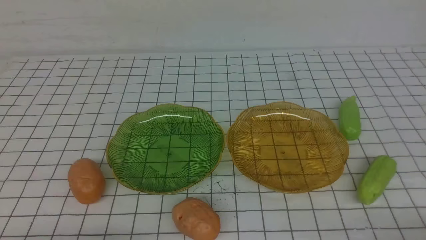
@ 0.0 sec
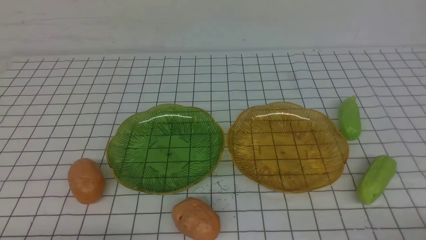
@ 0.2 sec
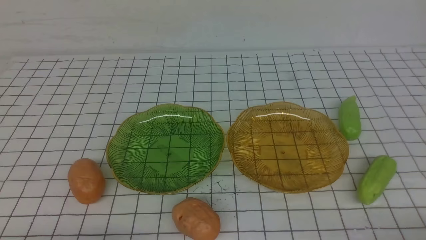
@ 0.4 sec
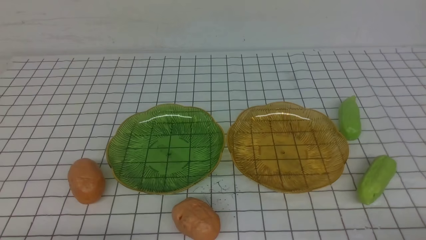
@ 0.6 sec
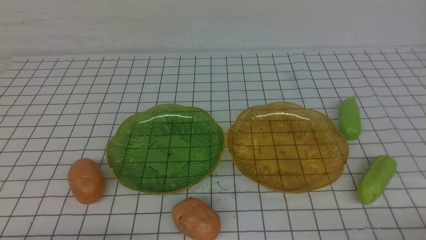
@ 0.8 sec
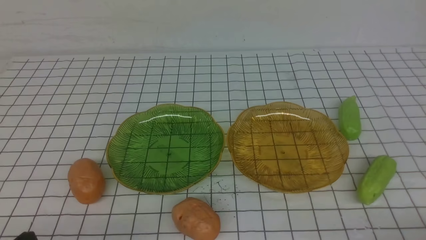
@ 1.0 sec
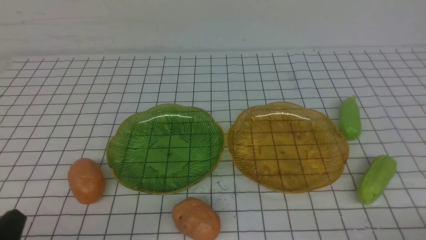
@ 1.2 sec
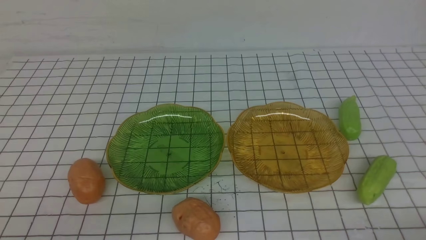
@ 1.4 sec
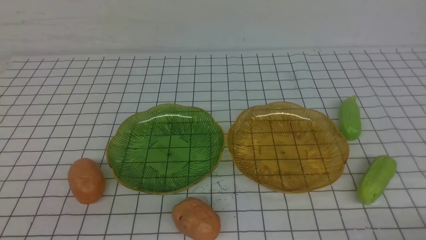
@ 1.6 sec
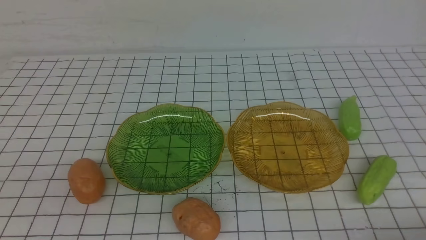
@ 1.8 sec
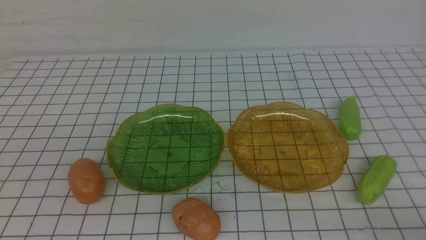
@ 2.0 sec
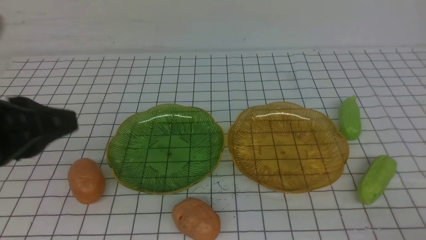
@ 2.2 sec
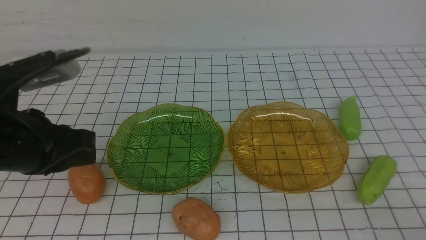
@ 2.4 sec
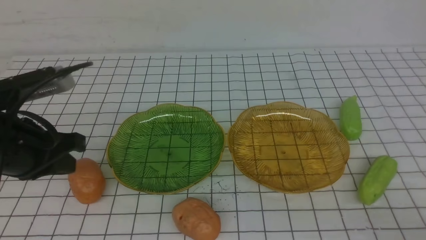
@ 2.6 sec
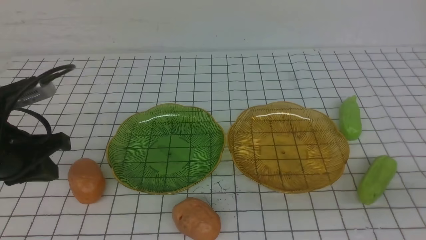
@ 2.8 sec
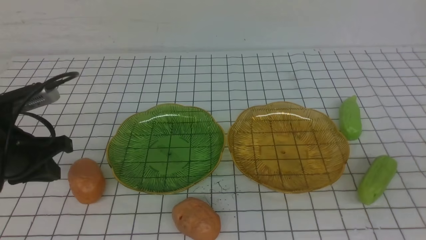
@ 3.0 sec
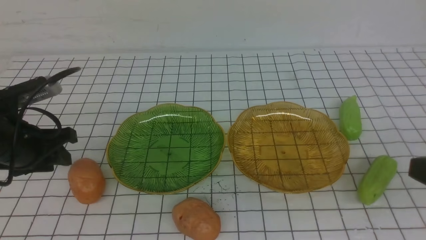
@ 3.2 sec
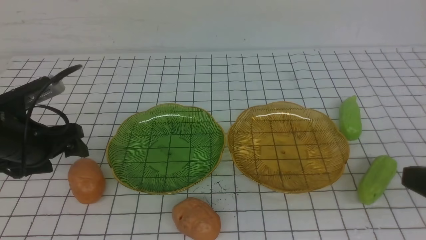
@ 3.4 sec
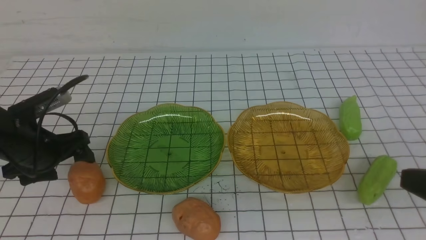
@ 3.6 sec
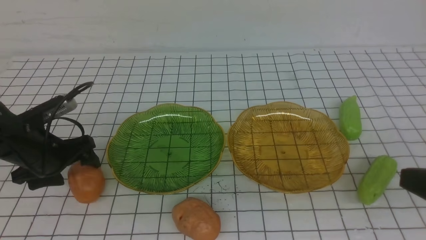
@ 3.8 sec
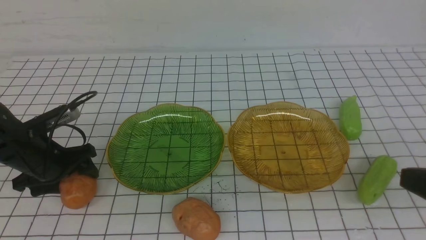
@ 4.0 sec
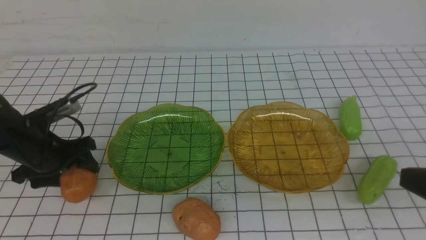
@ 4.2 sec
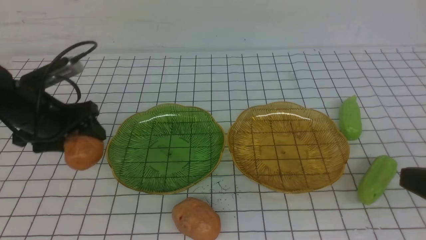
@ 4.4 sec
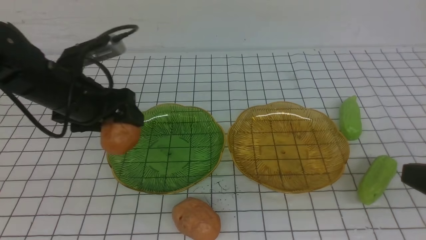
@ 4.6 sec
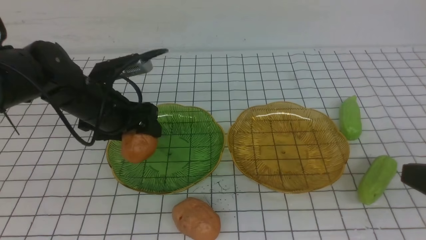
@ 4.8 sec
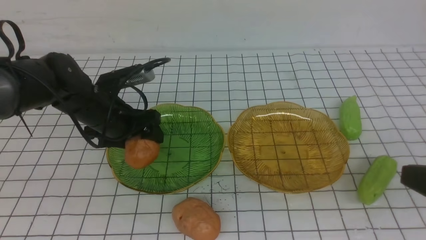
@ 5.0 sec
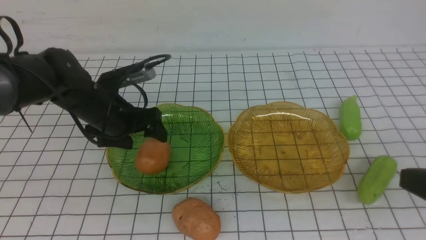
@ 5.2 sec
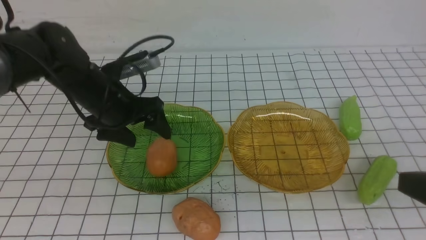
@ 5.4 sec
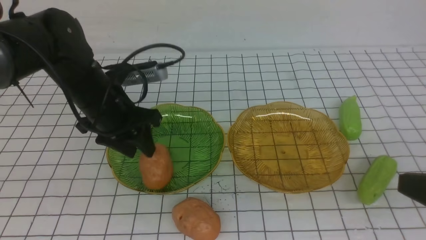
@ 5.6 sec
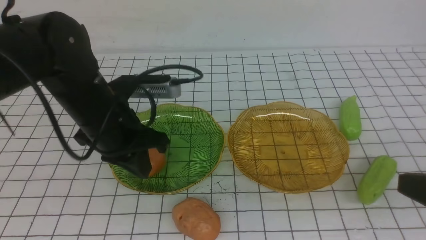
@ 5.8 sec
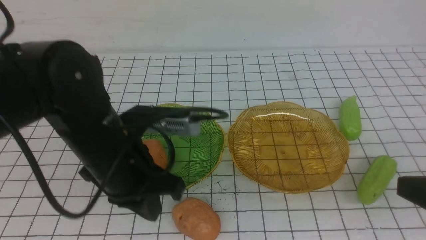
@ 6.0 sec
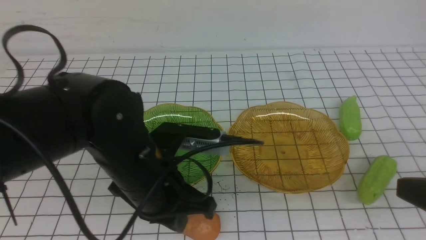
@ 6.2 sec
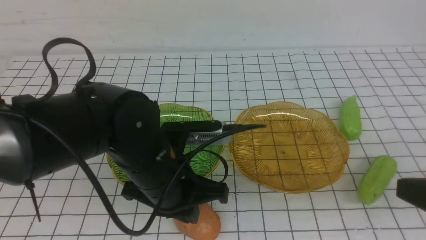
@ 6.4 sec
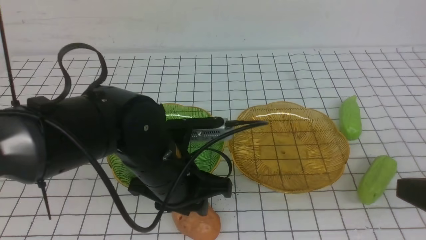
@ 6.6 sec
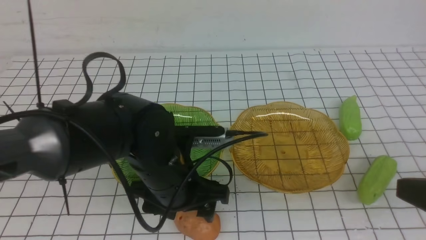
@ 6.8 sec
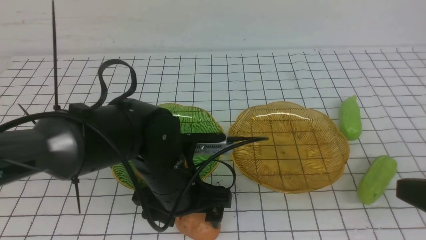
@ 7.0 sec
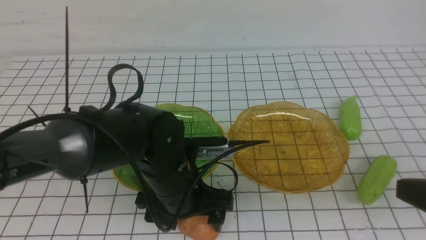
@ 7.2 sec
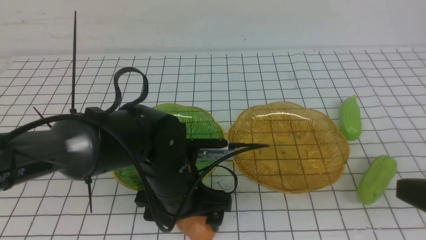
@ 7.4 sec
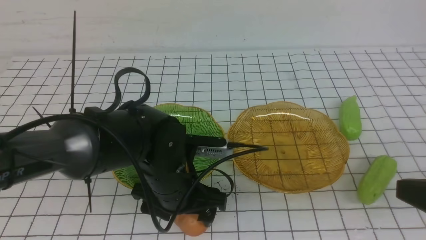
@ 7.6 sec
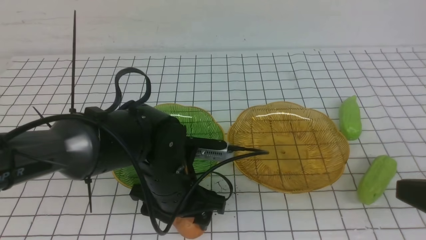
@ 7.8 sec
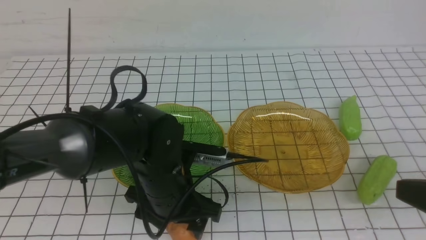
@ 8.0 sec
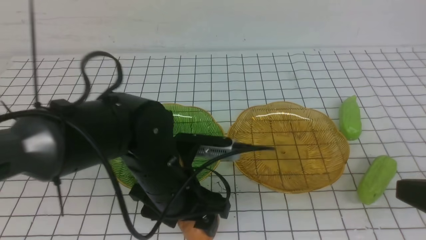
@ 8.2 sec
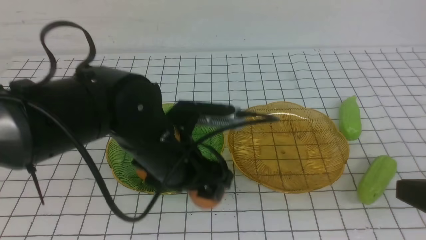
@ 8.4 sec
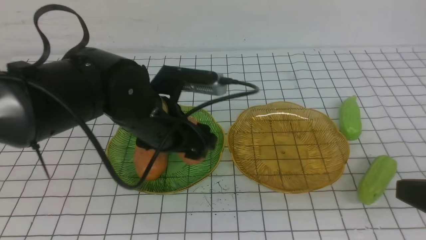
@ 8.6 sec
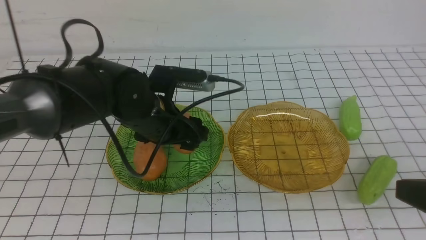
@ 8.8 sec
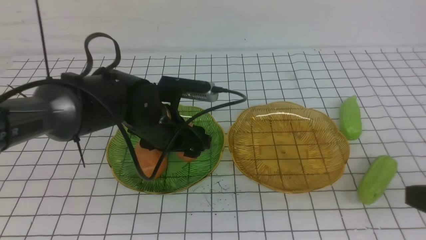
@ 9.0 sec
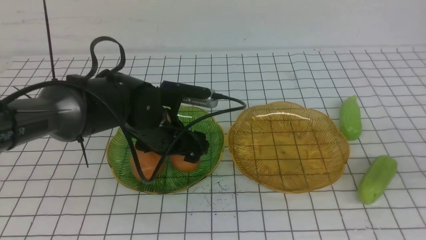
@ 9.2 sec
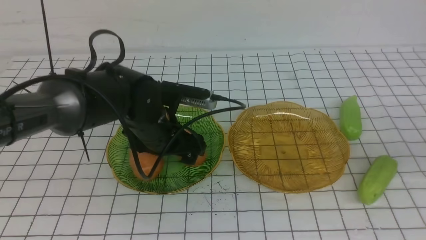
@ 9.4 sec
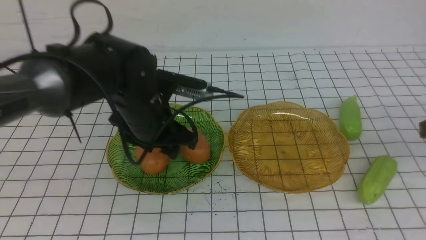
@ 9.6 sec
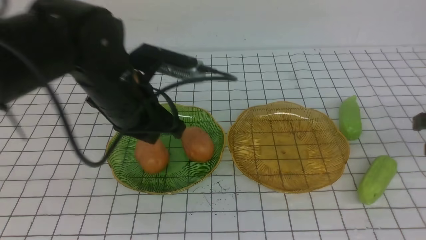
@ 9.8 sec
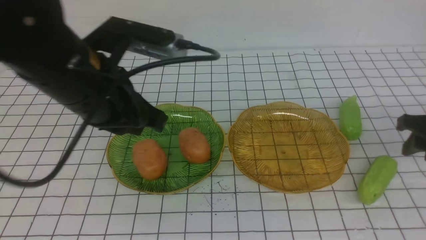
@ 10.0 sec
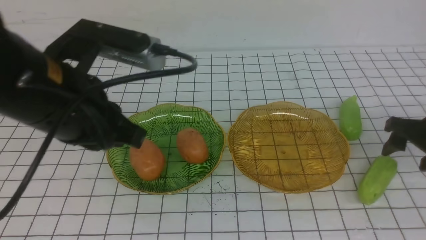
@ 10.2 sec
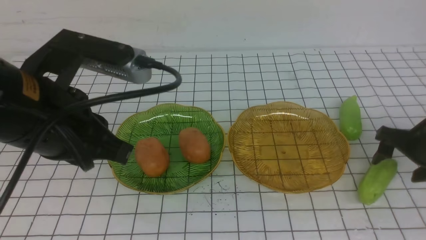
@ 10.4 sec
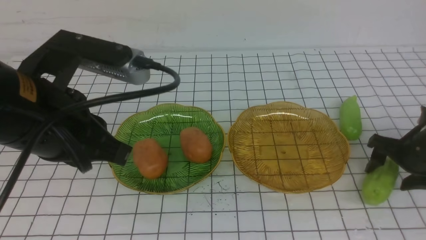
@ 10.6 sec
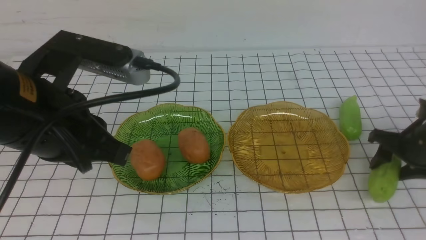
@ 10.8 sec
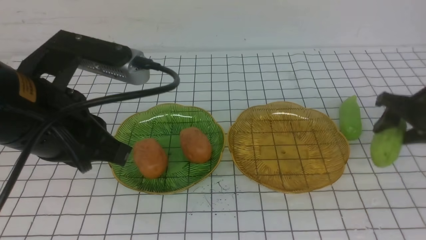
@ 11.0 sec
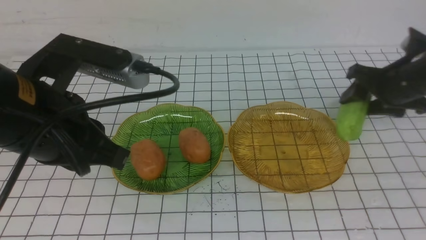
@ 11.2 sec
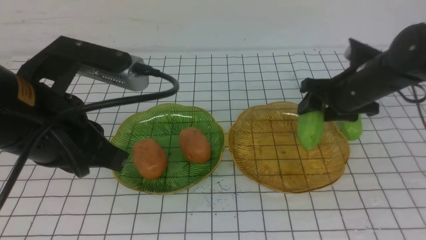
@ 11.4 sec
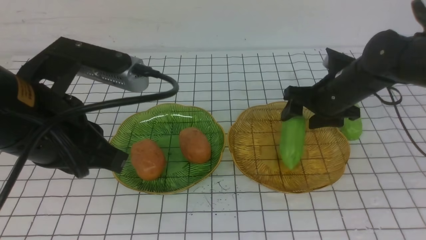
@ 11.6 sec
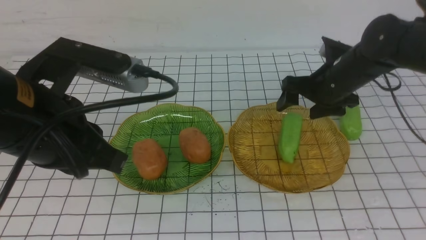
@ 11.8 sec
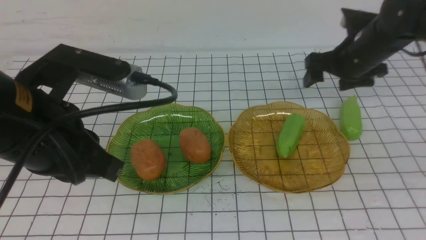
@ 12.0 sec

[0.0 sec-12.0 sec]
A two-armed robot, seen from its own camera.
Step, 0.0 sec to 9.4 sec: Grab a potato with your left arm and put it on the left plate.
Step, 9.6 sec to 11.6 sec: use the right arm to grab a chayote and put it into the right plate.
1.6 sec to 3.0 sec: The left gripper travels forward by about 20 cm.
3.0 sec to 4.4 sec: The left gripper heads forward, covering roughly 5 cm, moves roughly 10 cm downward and comes back, and opens up.
4.4 sec to 6.0 sec: The left gripper shifts about 15 cm to the right and backward, and closes its fingers.
6.0 sec to 7.6 sec: The left gripper travels downward by about 10 cm, and opens its fingers.
7.6 sec to 9.0 sec: The left gripper travels forward by approximately 10 cm.
9.0 sec to 10.4 sec: The right gripper travels forward and downward by approximately 25 cm, and opens up. Meanwhile the left gripper is displaced upward, backward and to the left by some 20 cm, and closes up.
10.4 sec to 12.0 sec: The right gripper travels forward, to the left and upward by some 15 cm.

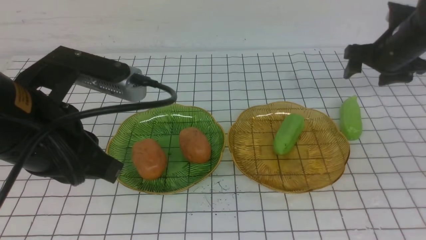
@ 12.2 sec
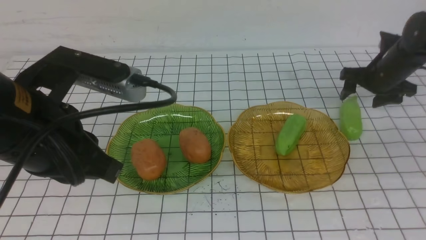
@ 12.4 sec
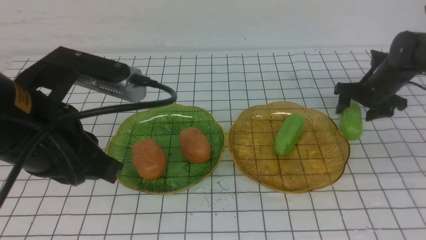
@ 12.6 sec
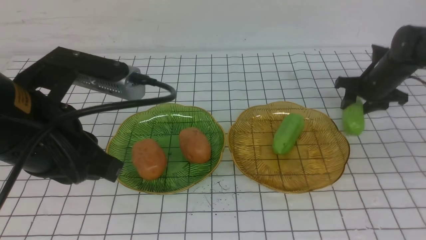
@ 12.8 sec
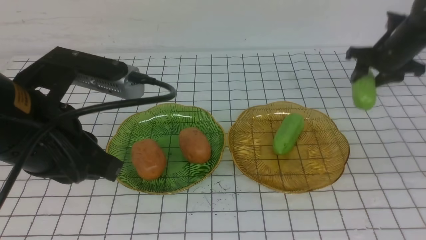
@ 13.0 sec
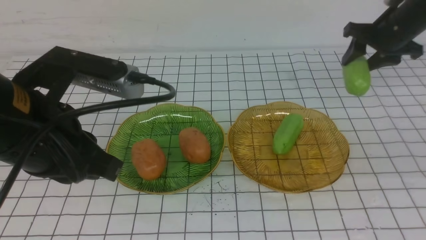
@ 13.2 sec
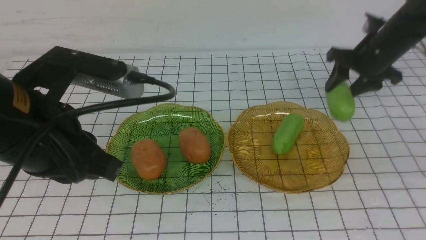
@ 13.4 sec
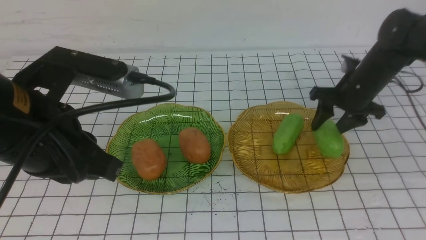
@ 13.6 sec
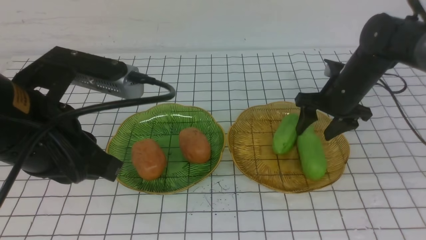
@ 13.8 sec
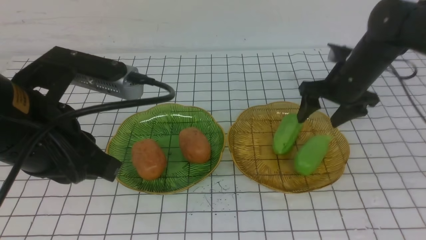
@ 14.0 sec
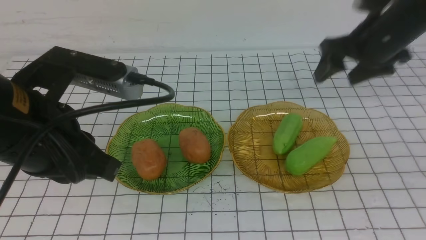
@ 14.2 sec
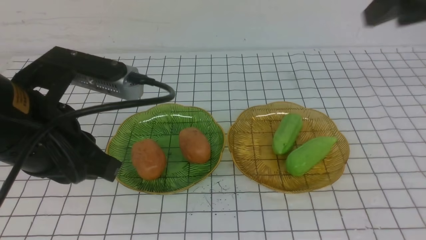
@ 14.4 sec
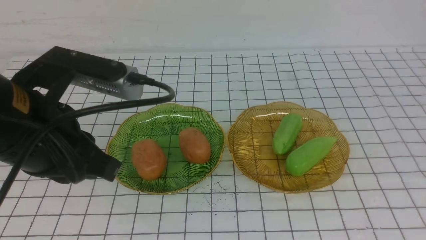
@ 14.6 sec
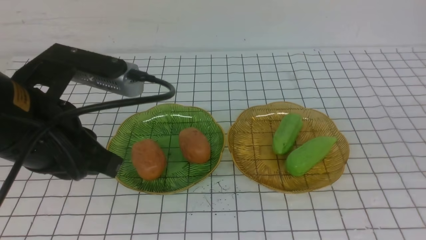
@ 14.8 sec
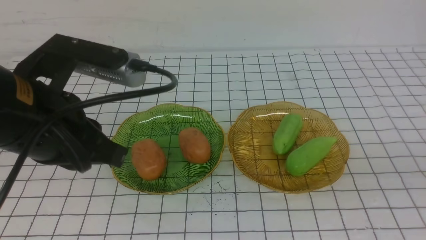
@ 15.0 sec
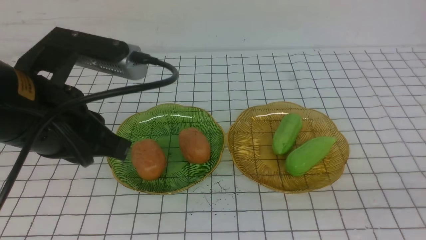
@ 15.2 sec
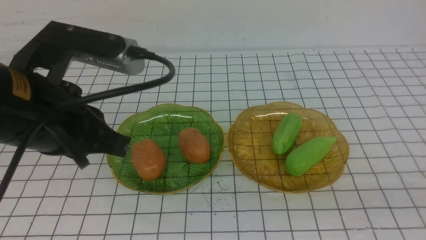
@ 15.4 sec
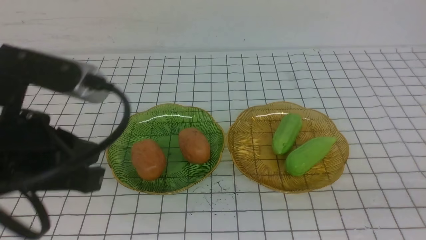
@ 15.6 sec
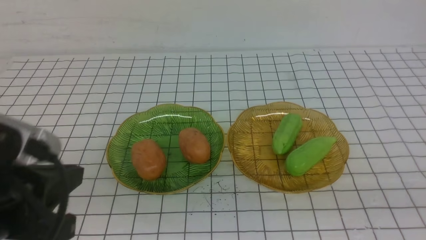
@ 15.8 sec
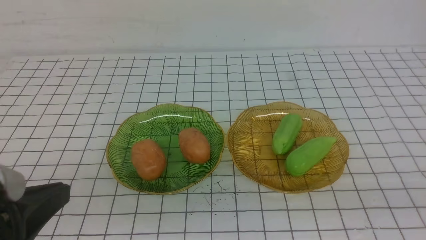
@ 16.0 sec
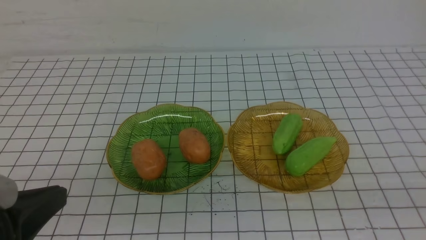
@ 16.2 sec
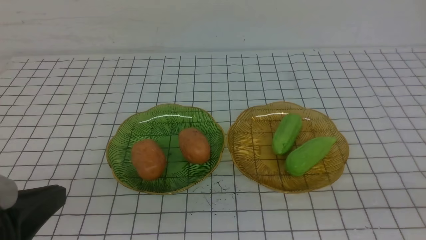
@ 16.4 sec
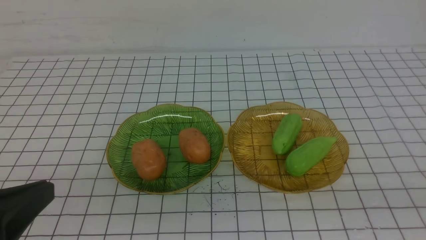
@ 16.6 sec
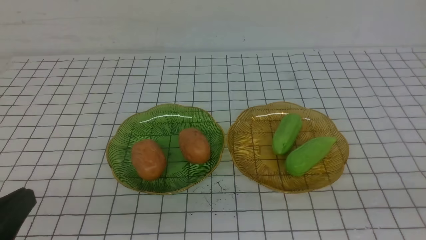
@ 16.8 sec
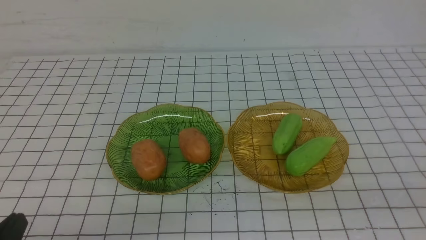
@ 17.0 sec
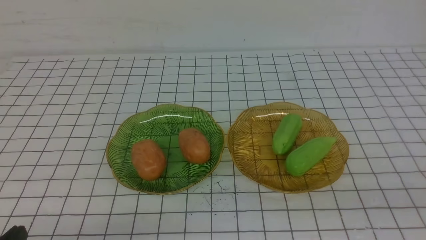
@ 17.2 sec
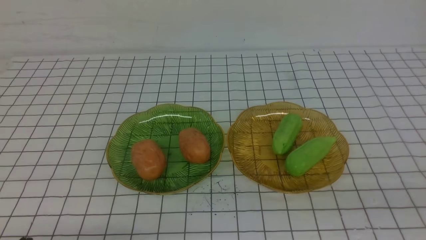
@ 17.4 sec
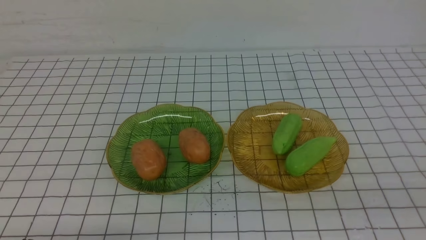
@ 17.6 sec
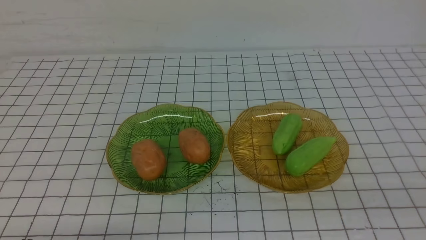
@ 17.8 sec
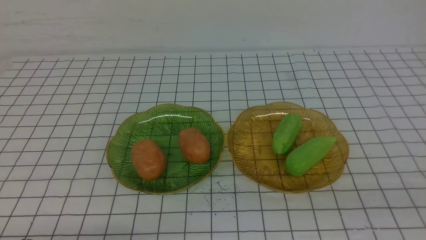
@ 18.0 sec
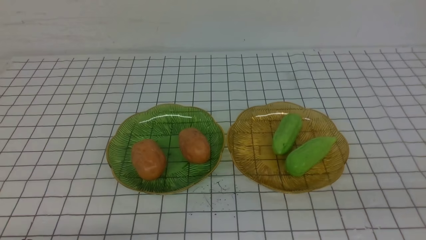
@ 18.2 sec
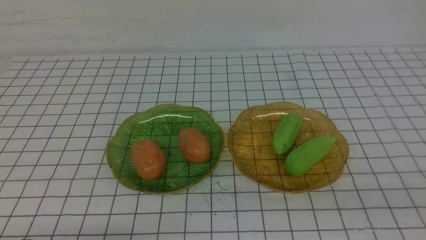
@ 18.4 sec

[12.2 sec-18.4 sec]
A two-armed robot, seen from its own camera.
Step, 12.2 sec to 14.0 sec: use the right arm to grab a chayote and put it into the right plate.
12.2 sec to 13.8 sec: The right gripper swings up and down, roughly 10 cm each way, with 2 reversals.
13.8 sec to 15.4 sec: The right gripper goes about 40 cm backward, and closes its fingers.
15.4 sec to 16.8 sec: The left gripper travels backward, downward and to the left by approximately 15 cm.
16.8 sec to 18.4 sec: The left gripper shifts about 10 cm downward.
